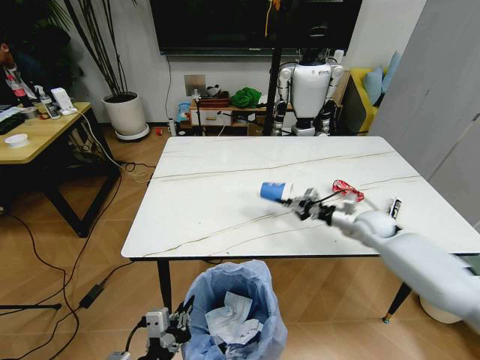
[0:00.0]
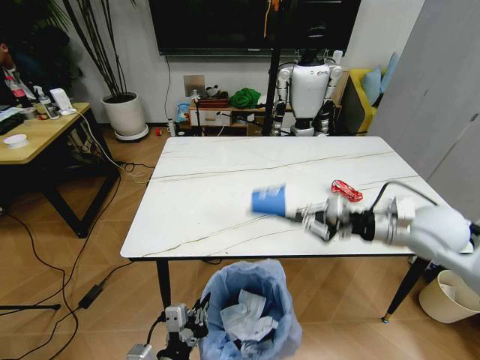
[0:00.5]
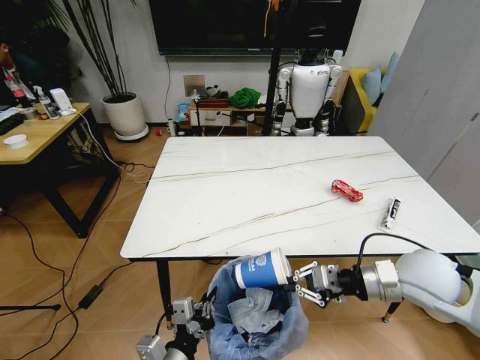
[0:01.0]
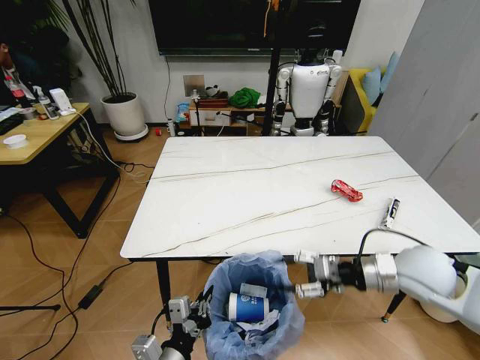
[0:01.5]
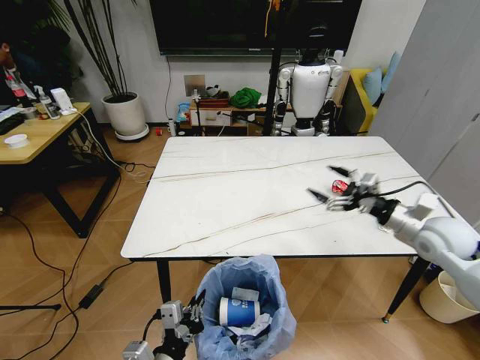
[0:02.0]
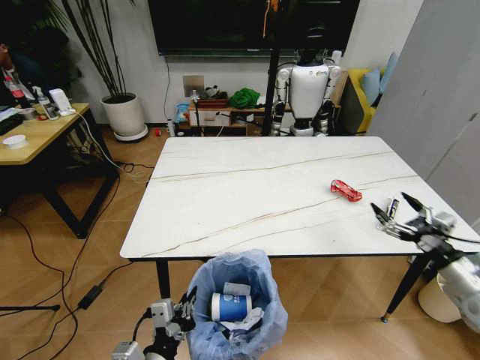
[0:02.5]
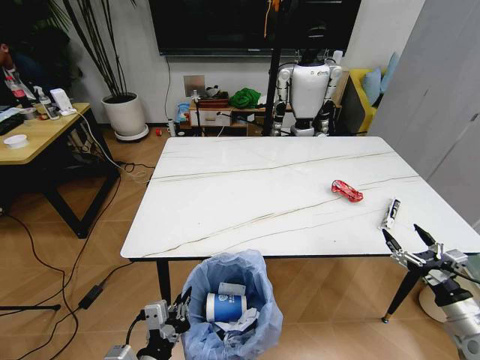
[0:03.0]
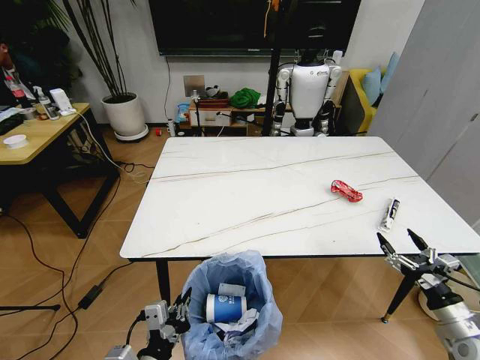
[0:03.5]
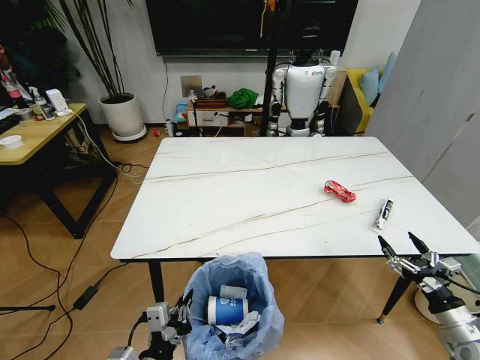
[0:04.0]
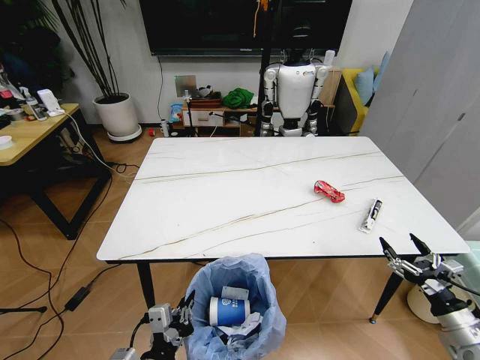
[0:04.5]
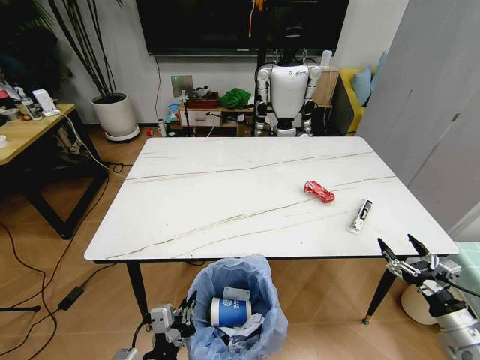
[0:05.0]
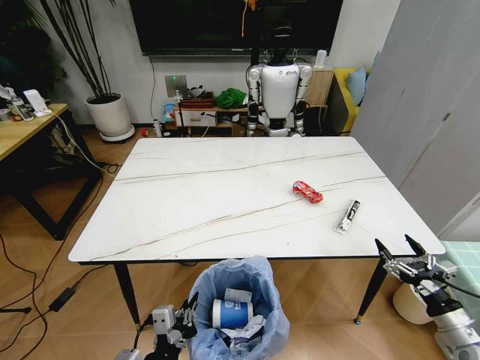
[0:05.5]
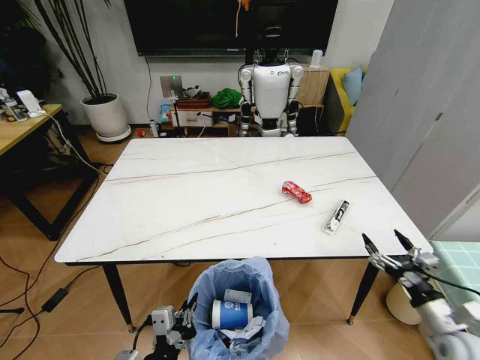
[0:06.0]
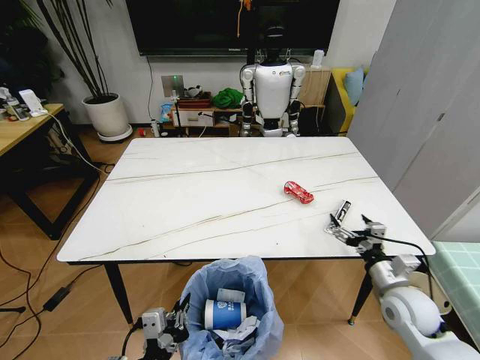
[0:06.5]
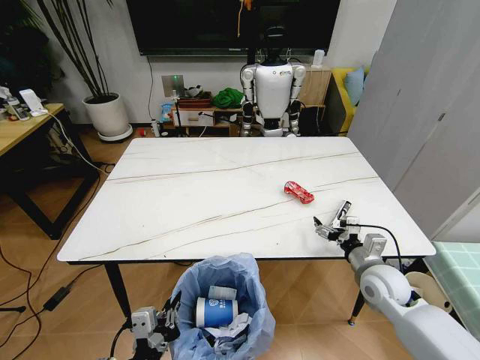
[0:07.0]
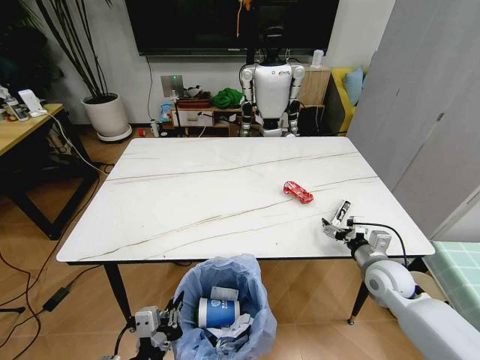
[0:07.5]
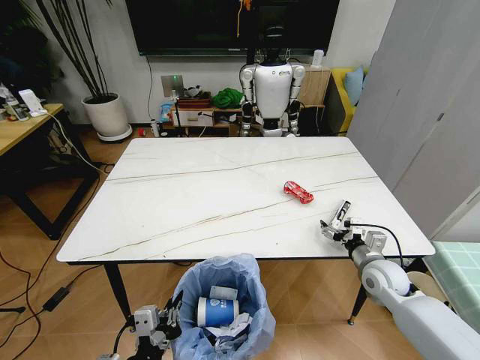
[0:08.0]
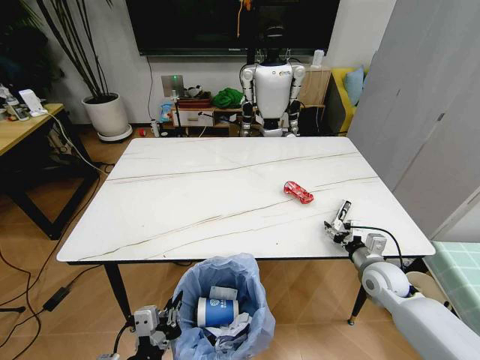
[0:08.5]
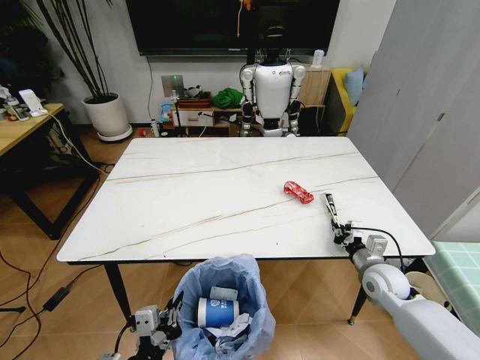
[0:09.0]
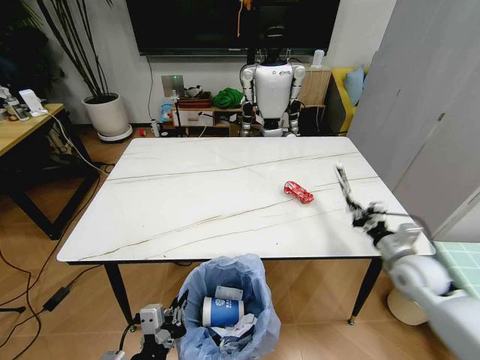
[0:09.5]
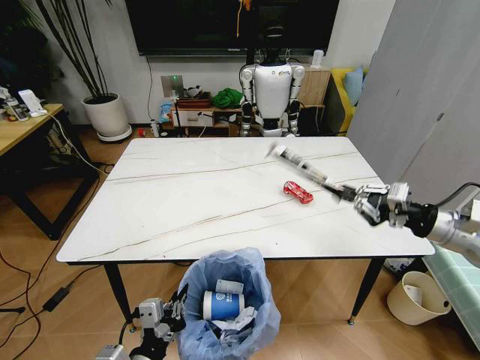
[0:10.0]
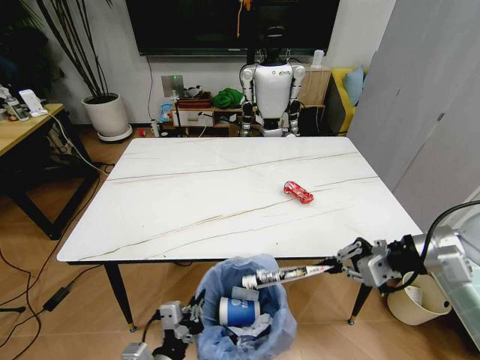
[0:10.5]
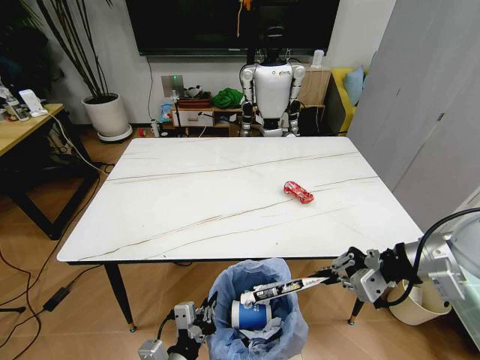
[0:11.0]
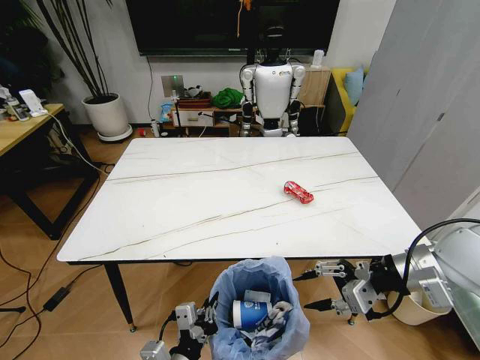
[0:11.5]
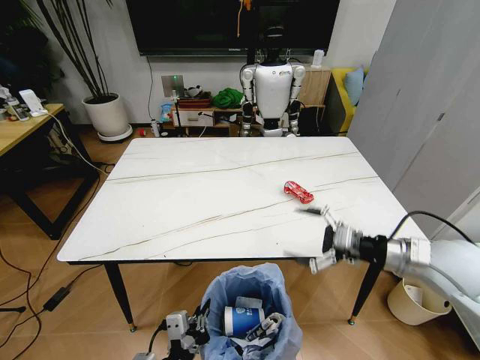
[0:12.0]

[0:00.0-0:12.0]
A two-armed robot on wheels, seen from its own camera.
Task of the whole recording: Pick up the trash bin and place the trash from the table into it.
0:00.0 to 0:02.0: The right gripper heads upward, backward and to the right, covering roughly 20 cm, and opens.
0:02.0 to 0:04.0: The right gripper heads backward and downward, covering about 25 cm.
0:06.0 to 0:08.0: The right gripper moves forward and to the left, some 20 cm.
0:08.0 to 0:10.0: The right gripper heads upward and to the right, covering approximately 25 cm, and closes its fingers.
0:10.0 to 0:12.0: The left gripper ends up some 5 cm from where it was. Meanwhile the right gripper moves to the left, some 10 cm, and opens its fingers.

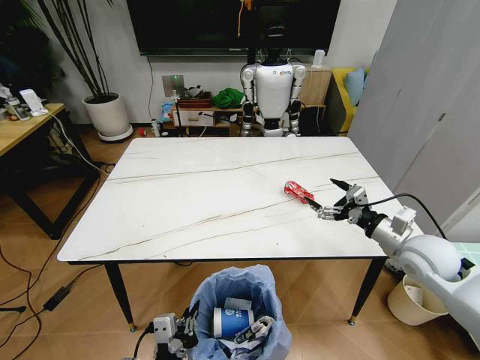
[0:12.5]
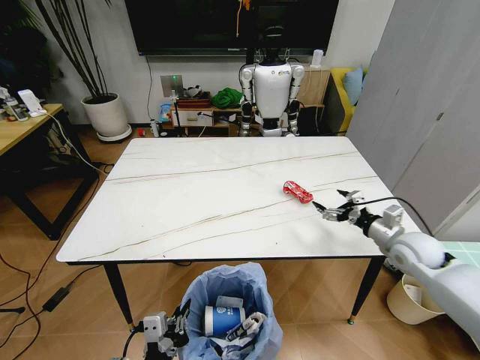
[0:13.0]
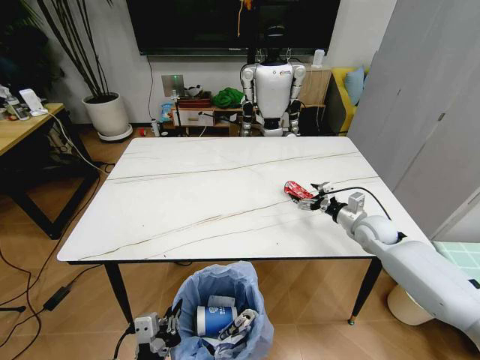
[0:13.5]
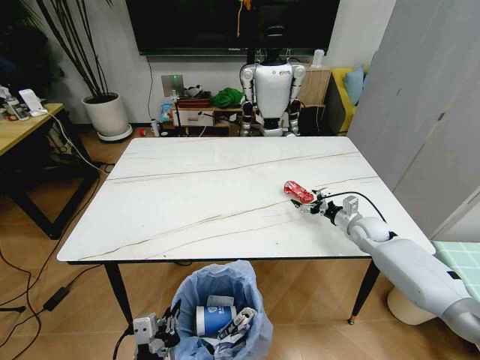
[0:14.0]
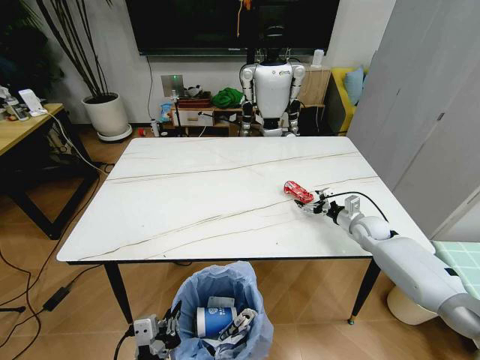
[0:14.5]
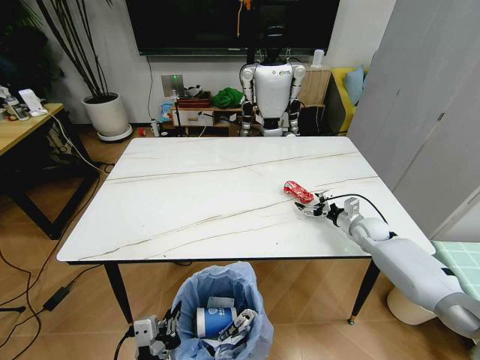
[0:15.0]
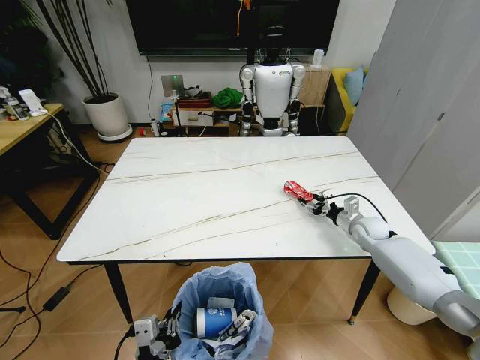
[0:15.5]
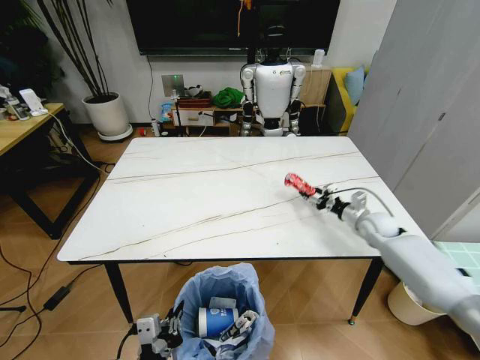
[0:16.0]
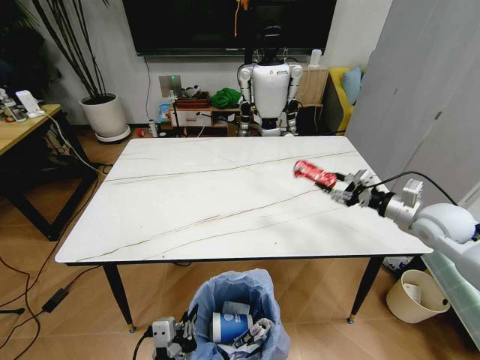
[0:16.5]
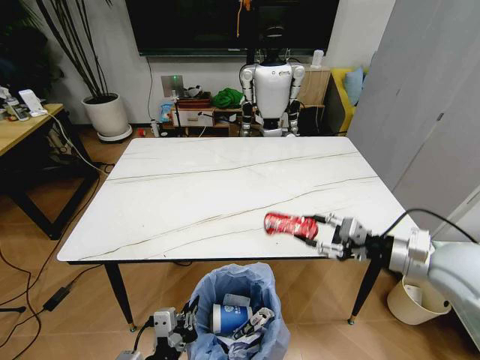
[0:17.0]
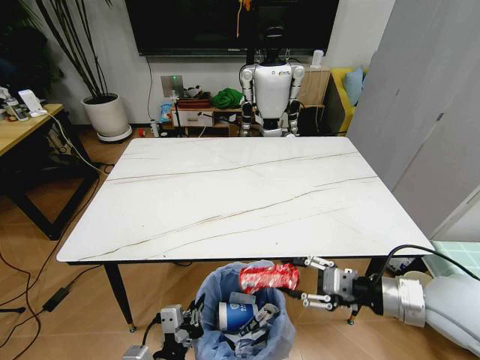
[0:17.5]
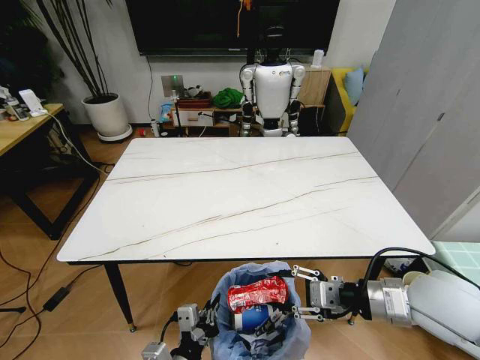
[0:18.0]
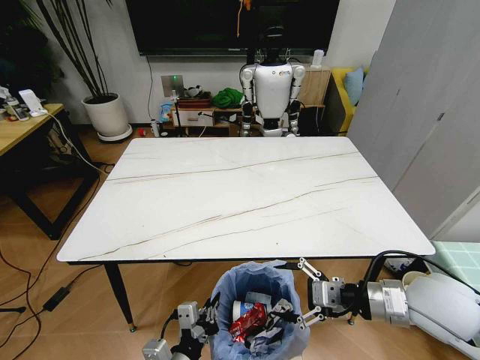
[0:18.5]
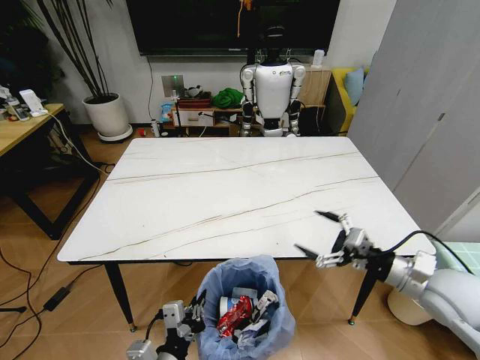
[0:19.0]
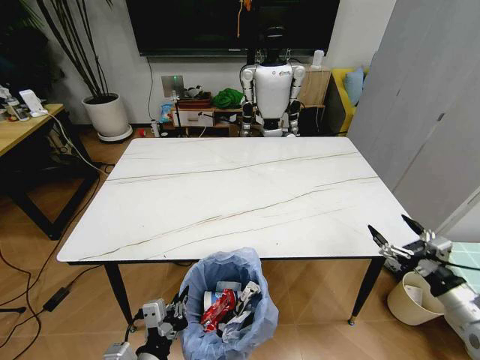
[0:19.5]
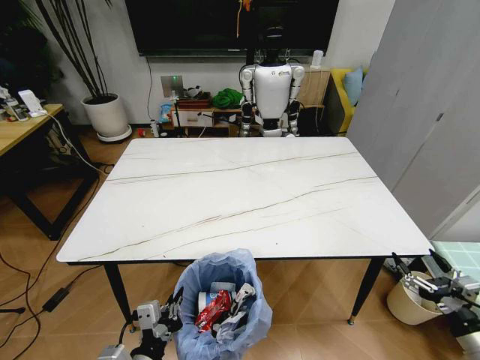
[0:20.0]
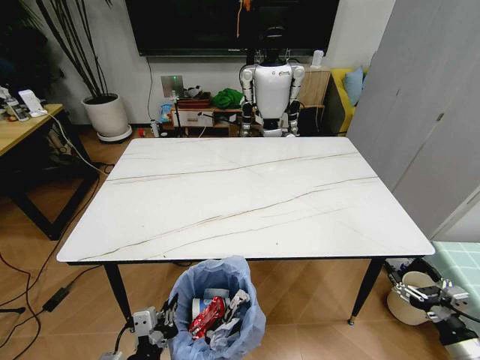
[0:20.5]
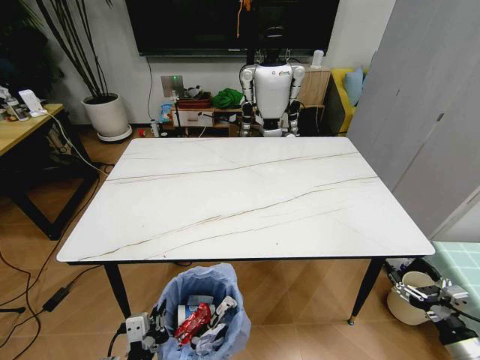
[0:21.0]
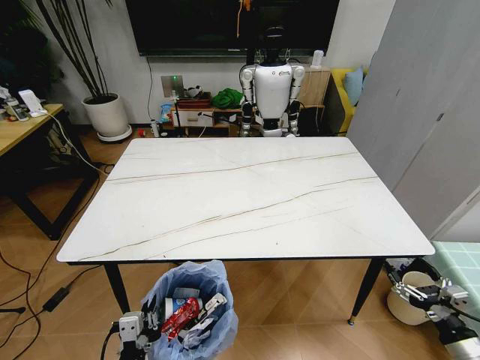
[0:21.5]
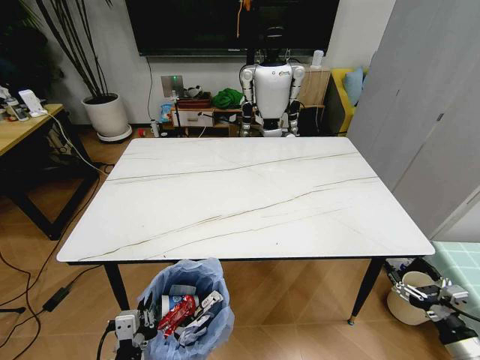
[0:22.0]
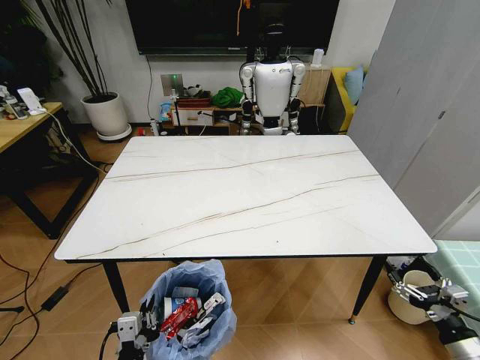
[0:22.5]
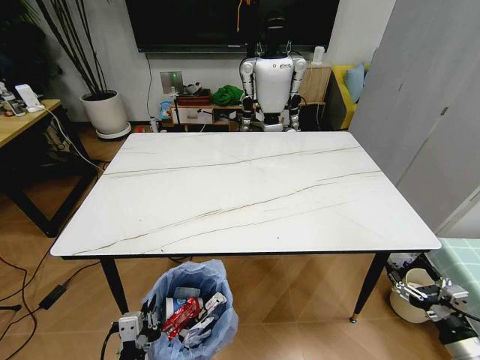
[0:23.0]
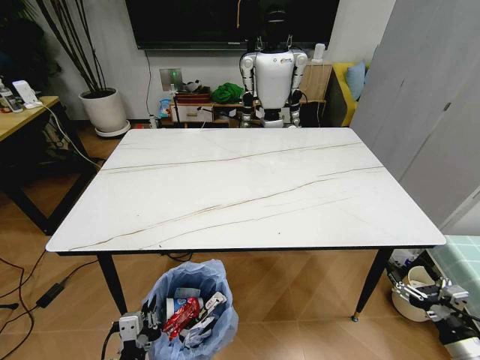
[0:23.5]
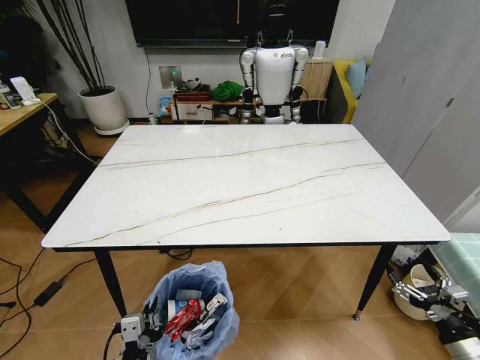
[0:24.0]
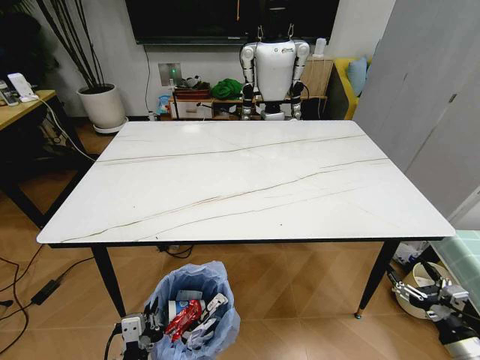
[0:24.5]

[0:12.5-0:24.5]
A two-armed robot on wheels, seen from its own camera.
Task of the whole recording: Pick up the trash bin and place the trash from the table into it.
0:12.5 to 0:14.5: The right gripper is displaced forward and downward by some 20 cm.
0:14.5 to 0:16.5: The right gripper travels upward and backward by roughly 20 cm, and closes.
0:16.5 to 0:18.5: The right gripper moves backward and to the left, some 20 cm, and opens its fingers.
0:18.5 to 0:20.5: The left gripper moves to the left, about 5 cm. Meanwhile the right gripper goes about 25 cm downward, to the right and backward.
0:20.5 to 0:22.5: There are only small adjustments of the grippers.

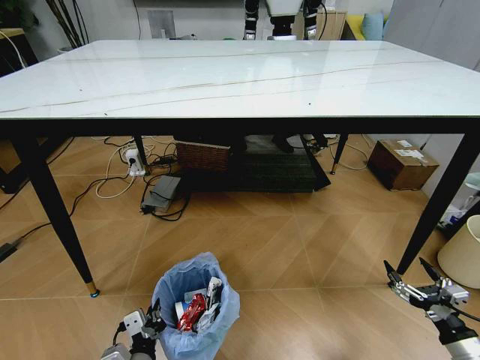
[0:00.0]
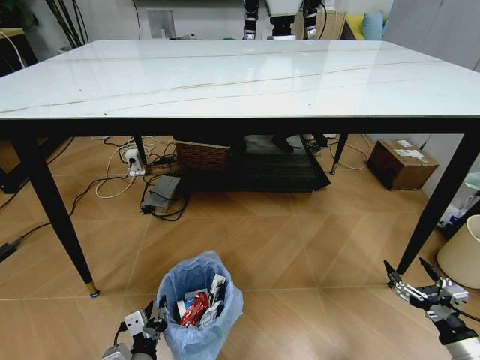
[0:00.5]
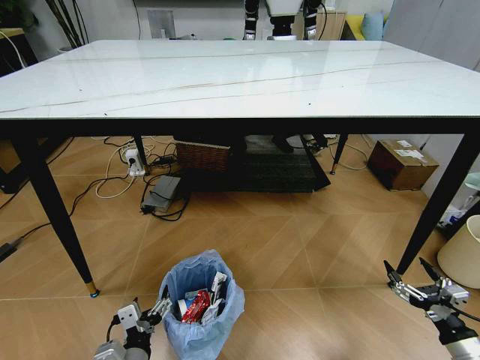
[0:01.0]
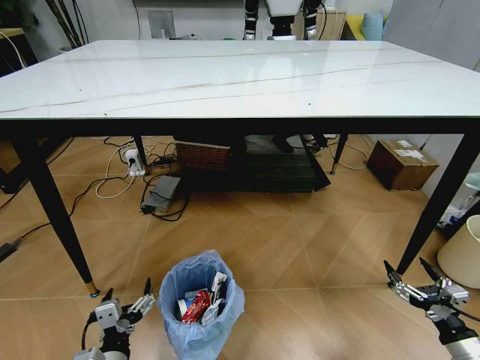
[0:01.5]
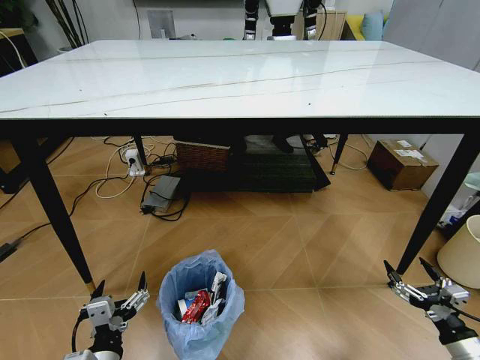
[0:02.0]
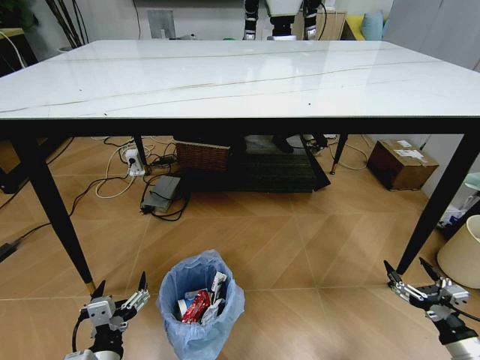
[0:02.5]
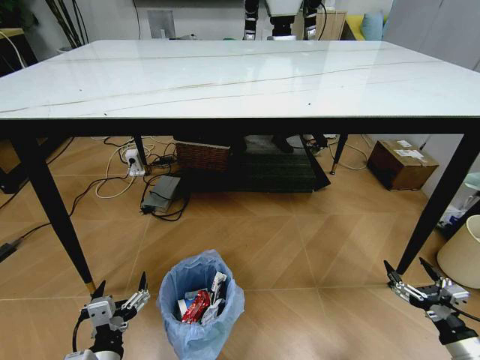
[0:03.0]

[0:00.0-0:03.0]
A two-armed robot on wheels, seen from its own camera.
Task of the whole recording: Pick up the trash bin and place the trash from the table into it.
0:00.0 to 0:01.5: The left gripper changes place by some 5 cm, and opens its fingers.
0:01.5 to 0:03.0: The grippers make only small movements.
